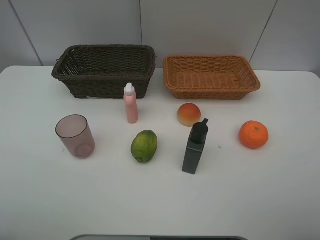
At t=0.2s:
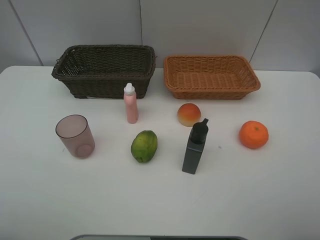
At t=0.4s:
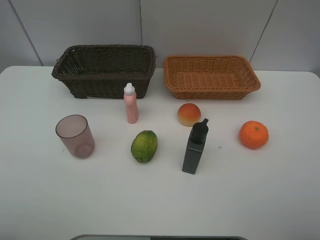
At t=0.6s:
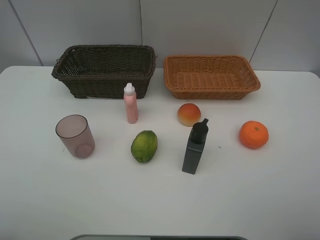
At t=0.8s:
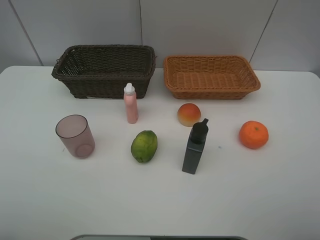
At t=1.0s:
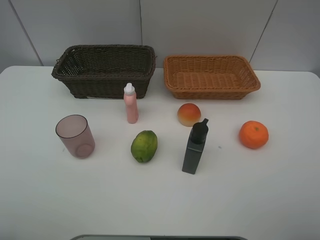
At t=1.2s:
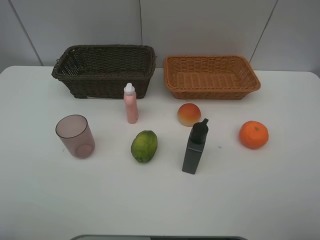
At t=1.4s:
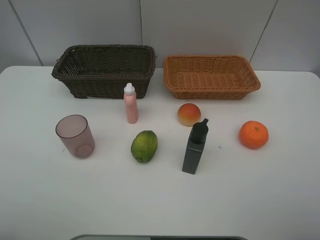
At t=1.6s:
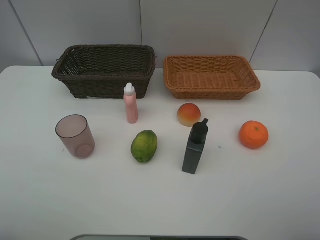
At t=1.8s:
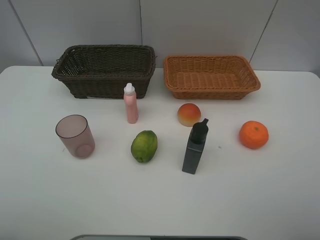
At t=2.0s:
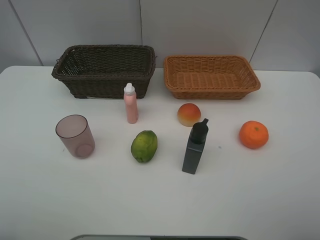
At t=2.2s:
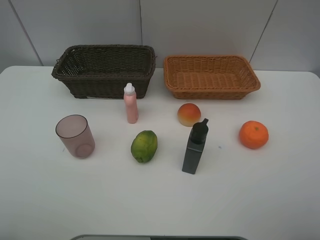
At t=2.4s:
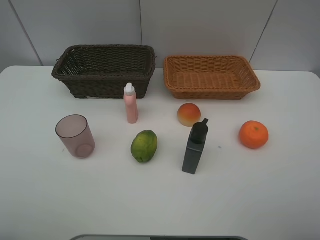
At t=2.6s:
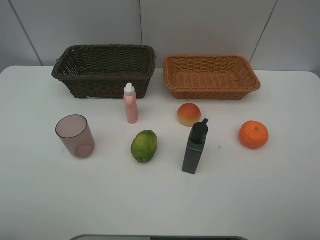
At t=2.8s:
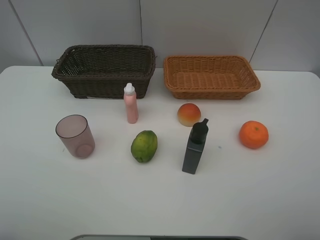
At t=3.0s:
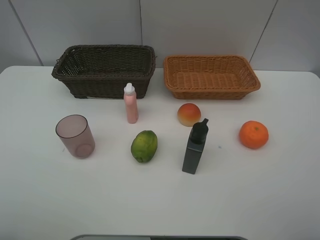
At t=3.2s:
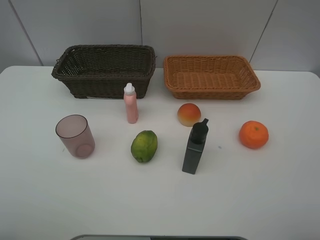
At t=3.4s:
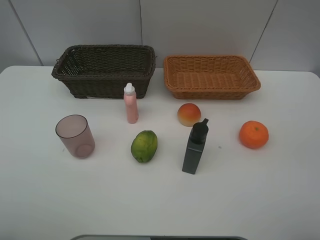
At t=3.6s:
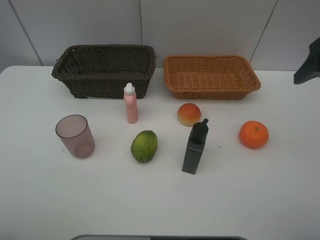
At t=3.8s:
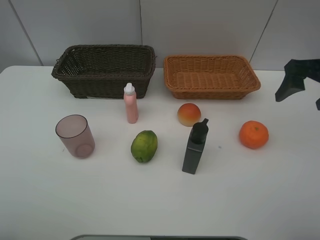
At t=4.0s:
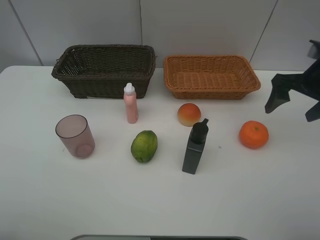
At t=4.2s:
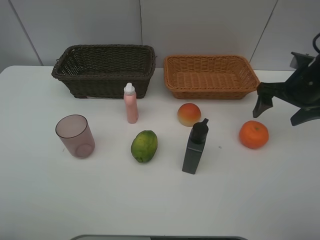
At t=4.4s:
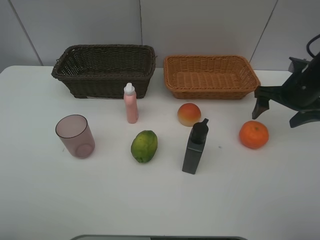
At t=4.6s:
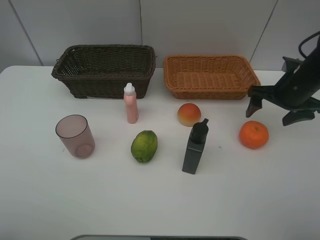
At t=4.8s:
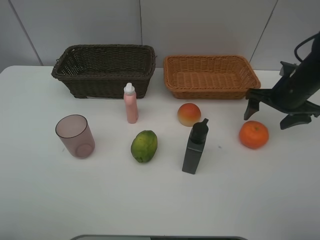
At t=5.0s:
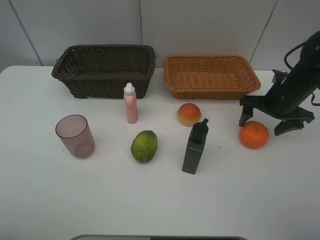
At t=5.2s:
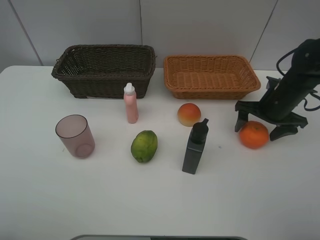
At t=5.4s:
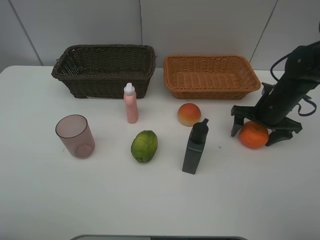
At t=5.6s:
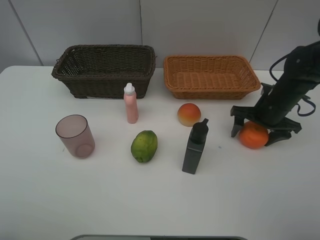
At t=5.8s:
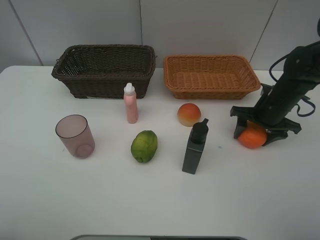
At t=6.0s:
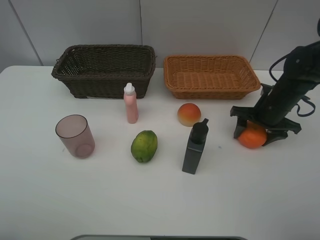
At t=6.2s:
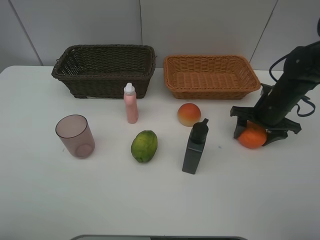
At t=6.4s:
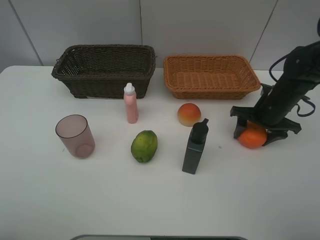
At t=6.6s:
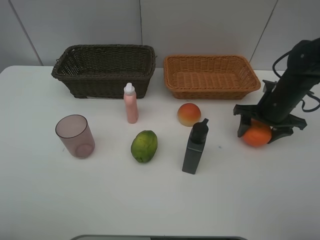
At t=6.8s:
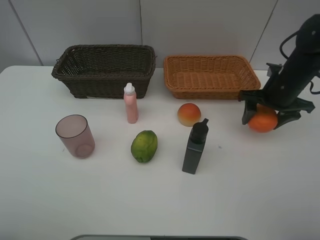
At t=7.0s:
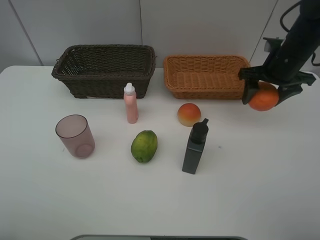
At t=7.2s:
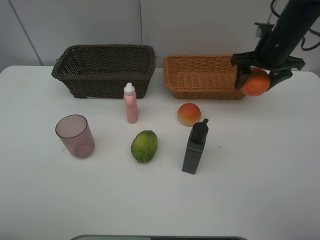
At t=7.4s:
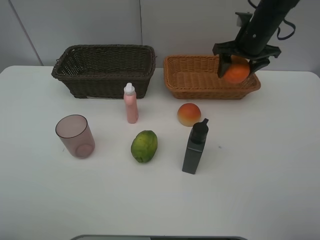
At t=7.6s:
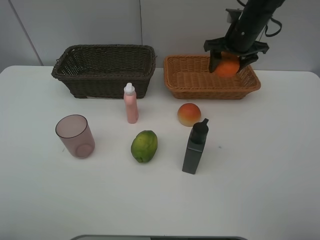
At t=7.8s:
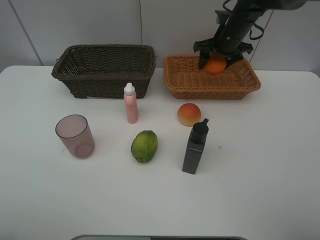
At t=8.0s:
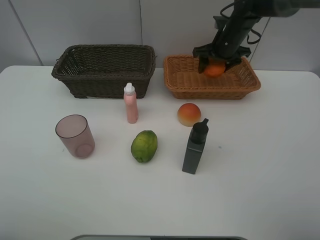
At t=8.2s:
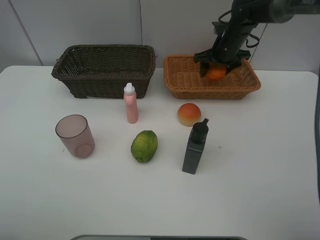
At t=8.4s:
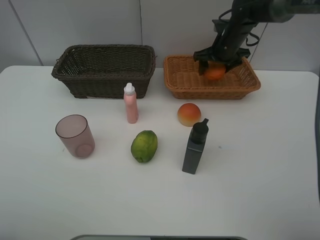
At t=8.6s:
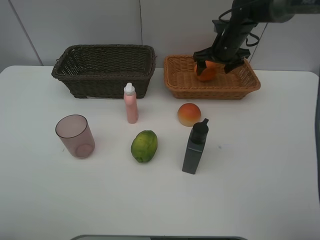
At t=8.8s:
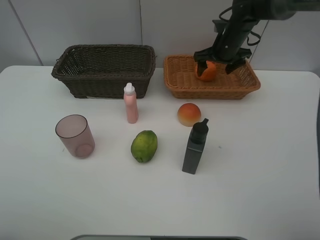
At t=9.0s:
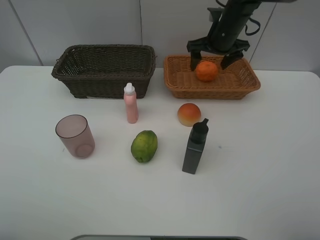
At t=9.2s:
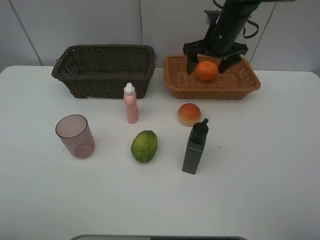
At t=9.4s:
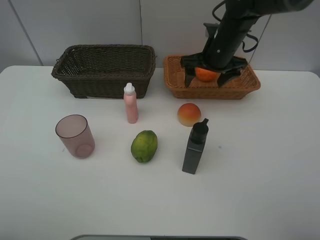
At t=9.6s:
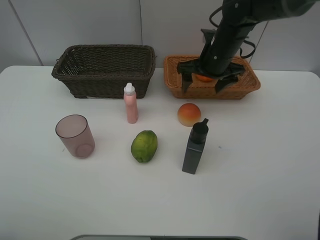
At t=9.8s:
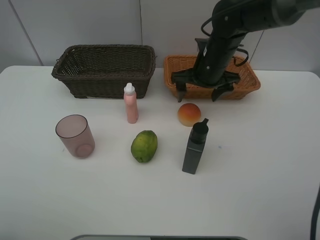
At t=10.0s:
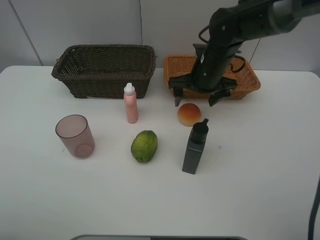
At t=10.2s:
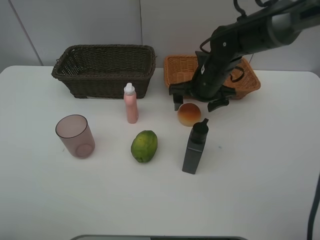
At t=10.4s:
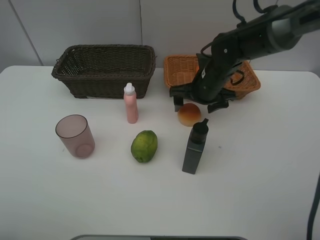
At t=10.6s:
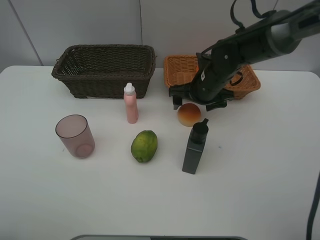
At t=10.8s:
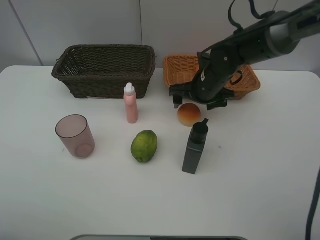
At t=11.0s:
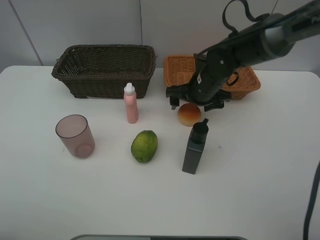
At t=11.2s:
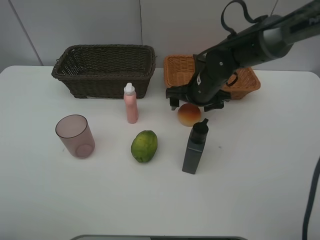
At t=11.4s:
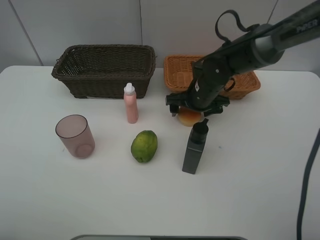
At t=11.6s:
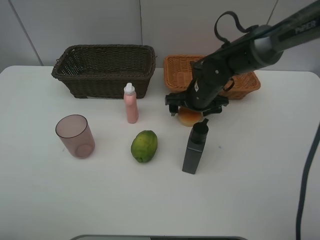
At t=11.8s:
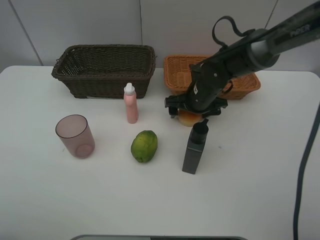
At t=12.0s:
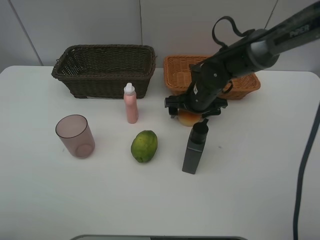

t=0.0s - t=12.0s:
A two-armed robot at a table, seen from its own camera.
Task of the whole recording: place multiple objects separately in different baskets.
t=0.0s - t=1.6s: Both grippers stay about where they are.
t=3.0s - t=4.4s: The right gripper travels forward and downward by approximately 30 cm.
t=4.4s - t=6.0s: The right gripper travels downward by roughly 5 cm, and closes up.
t=6.0s - t=7.6s: The right gripper is displaced forward, upward and to the left by about 20 cm.
t=7.6s - t=9.0s: The right gripper opens.
t=9.0s - t=10.4s: The right gripper is displaced backward and downward by approximately 15 cm.
t=10.4s - t=12.0s: The grippers stay close to where they were, moving slightly.

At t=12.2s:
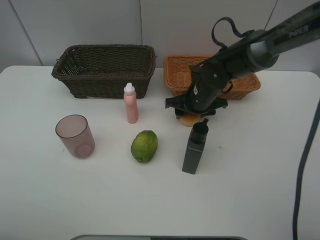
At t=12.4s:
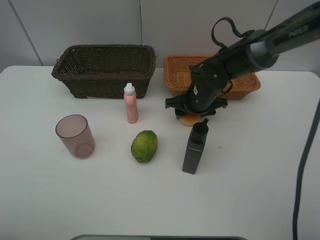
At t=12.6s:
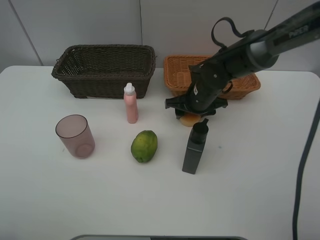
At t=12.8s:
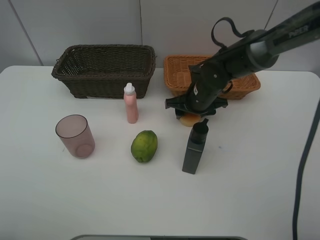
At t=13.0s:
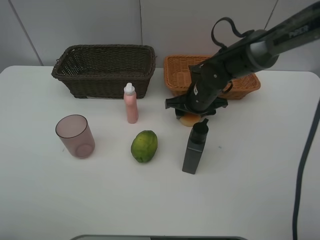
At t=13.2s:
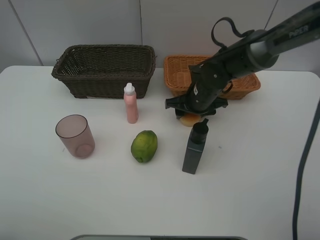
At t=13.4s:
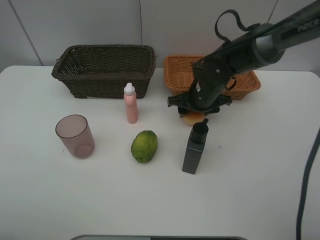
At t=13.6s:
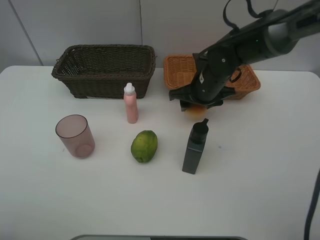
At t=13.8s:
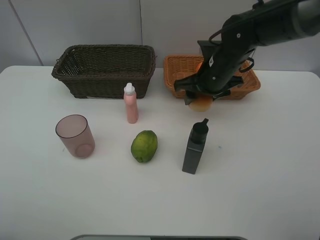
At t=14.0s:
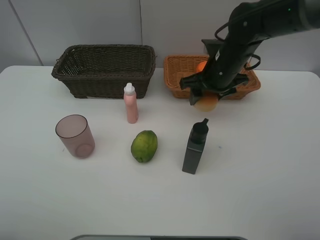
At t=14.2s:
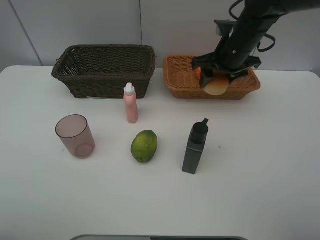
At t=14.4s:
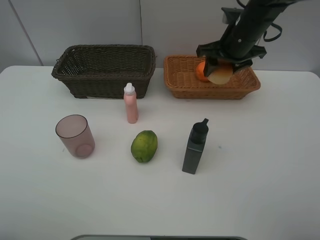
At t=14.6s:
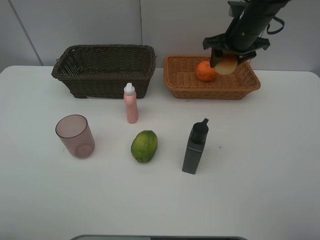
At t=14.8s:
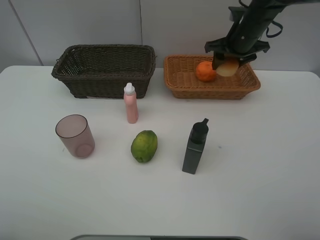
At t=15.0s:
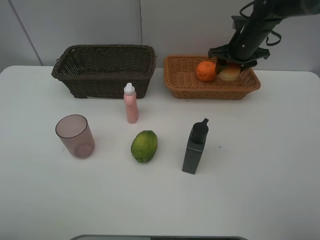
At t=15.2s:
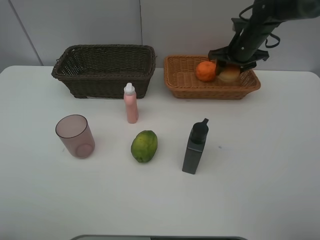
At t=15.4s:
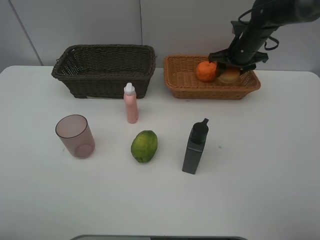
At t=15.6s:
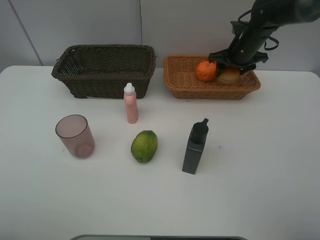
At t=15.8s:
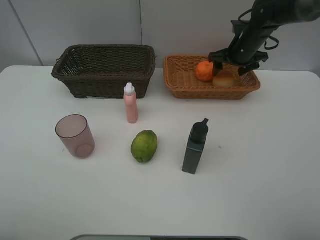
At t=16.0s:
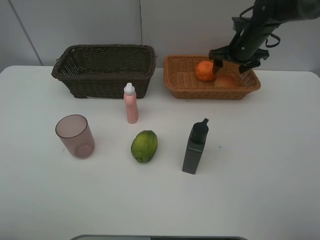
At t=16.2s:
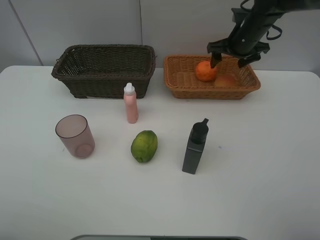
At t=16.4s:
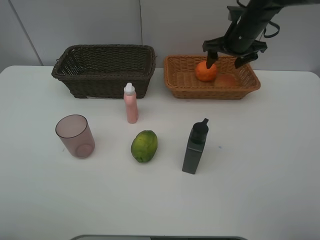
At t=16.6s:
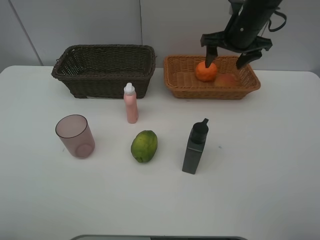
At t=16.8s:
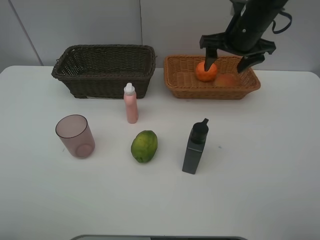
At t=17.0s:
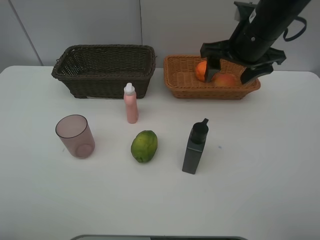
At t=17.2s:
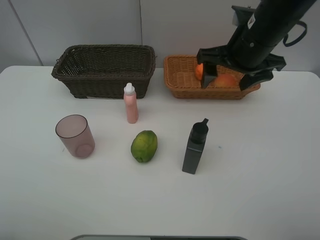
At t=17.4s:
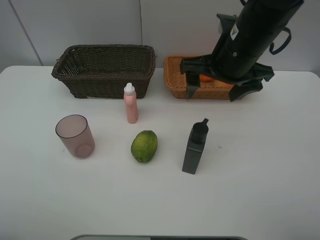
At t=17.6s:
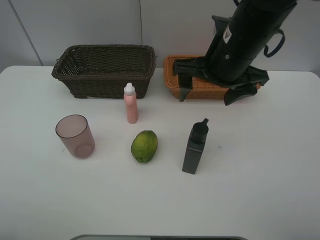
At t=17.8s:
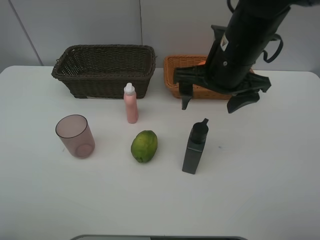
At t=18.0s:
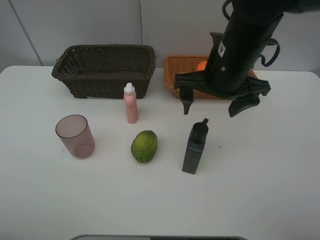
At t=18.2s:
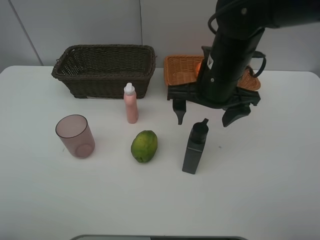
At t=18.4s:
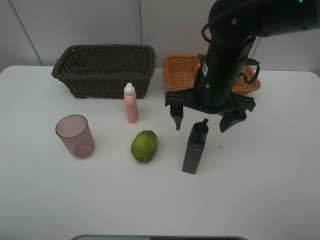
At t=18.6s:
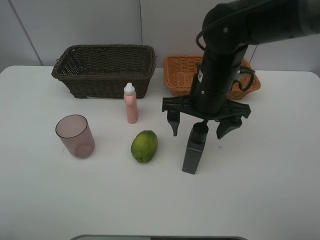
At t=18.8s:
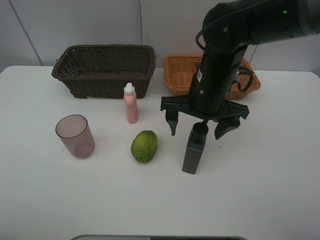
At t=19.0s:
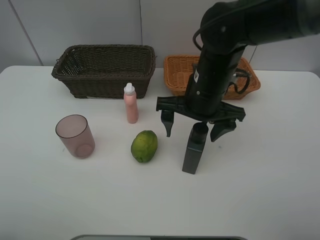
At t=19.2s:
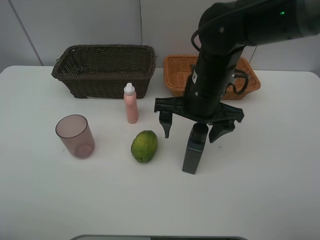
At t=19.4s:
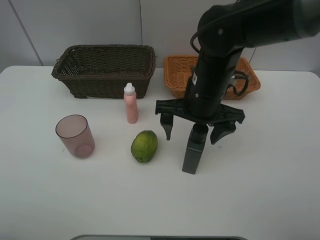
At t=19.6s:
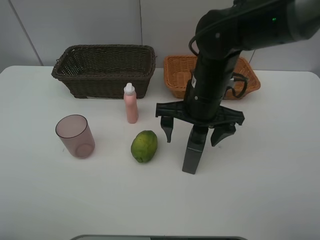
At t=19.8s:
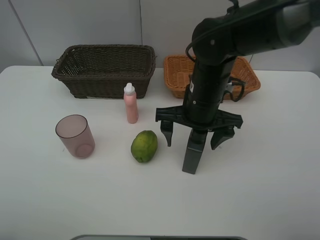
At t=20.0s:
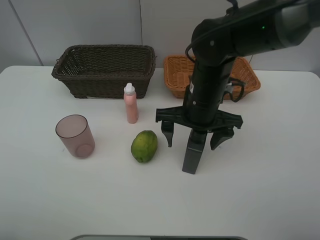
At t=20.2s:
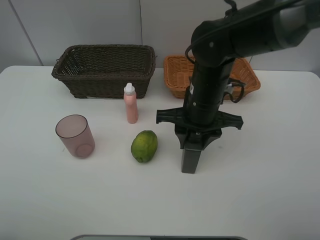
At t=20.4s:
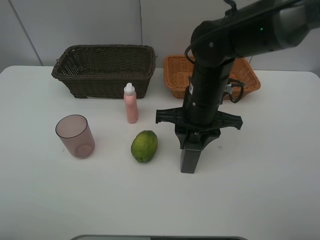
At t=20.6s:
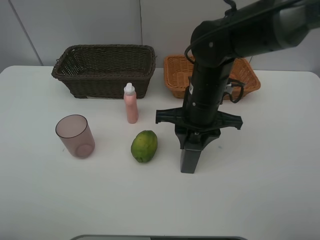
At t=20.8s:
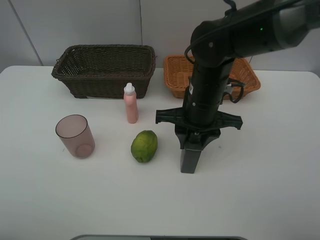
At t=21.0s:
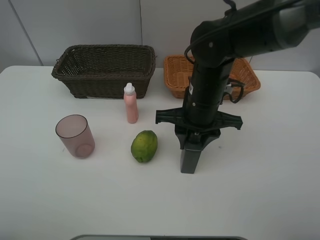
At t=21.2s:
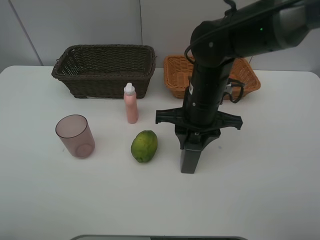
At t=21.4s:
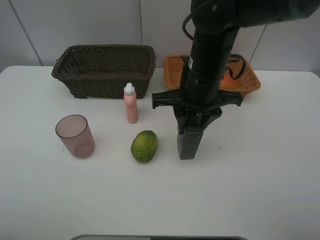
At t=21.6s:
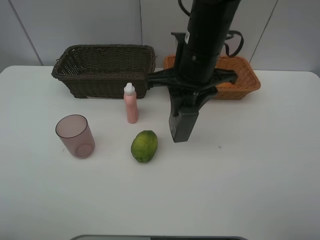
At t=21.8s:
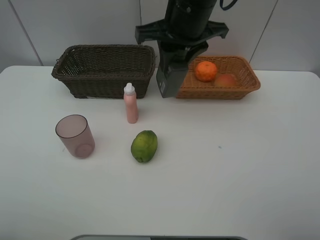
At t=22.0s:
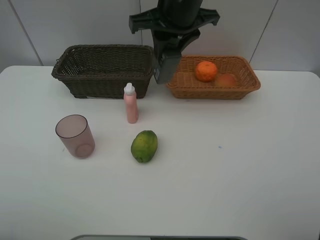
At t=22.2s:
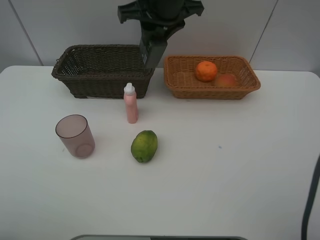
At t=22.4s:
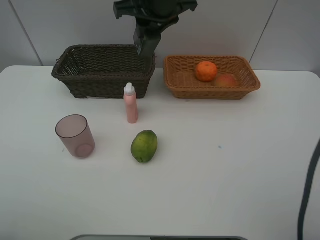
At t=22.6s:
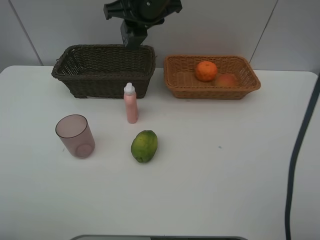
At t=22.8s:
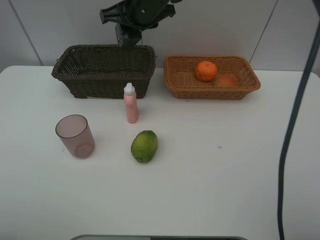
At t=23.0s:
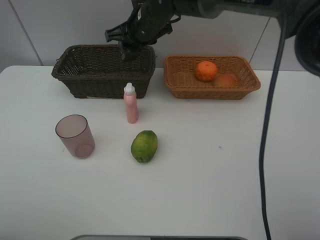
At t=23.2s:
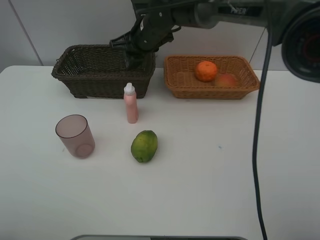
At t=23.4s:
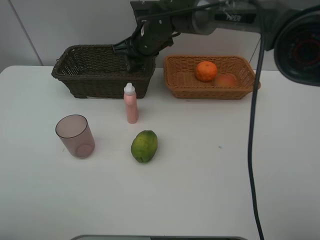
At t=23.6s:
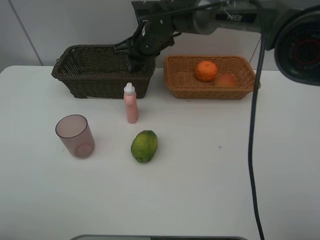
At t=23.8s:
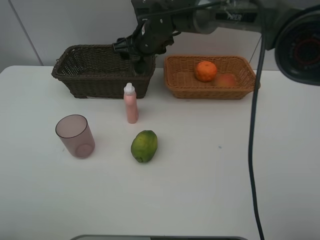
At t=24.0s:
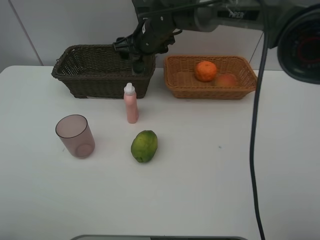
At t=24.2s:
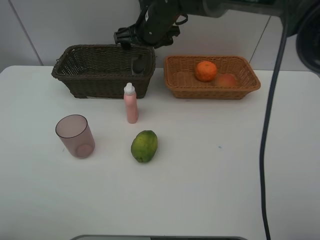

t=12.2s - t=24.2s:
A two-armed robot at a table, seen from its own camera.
Task of the whole recording: place multiple objects separately in different baskets.
t=12.2s - t=13.8s: The right gripper moves upward, approximately 5 cm.
t=13.8s - t=15.2s: The right gripper is displaced forward and to the right by roughly 15 cm.
t=15.2s - t=16.6s: The right gripper shifts some 10 cm upward and backward, and opens up.
t=16.6s - t=18.2s: The right gripper shifts approximately 15 cm backward and to the left.
t=18.2s - t=19.8s: The grippers move only a little.
t=19.8s - t=21.2s: The right gripper closes its fingers.
t=21.2s - t=22.6s: The right gripper is displaced forward, upward and to the left by some 20 cm.
t=22.6s - t=24.2s: The right gripper travels downward by approximately 5 cm, and opens its fingers.
